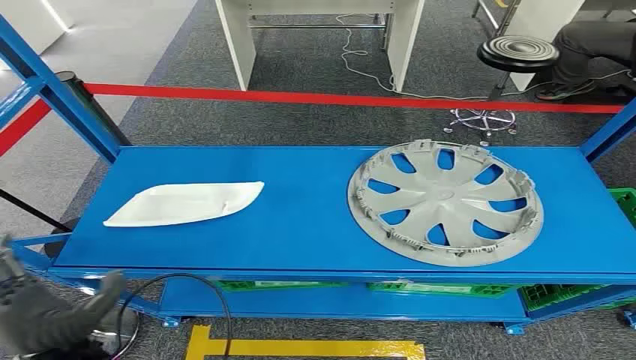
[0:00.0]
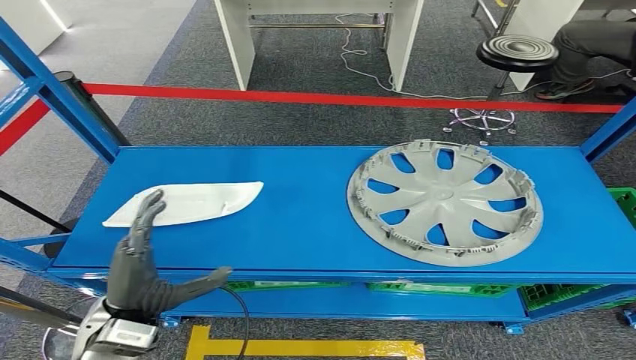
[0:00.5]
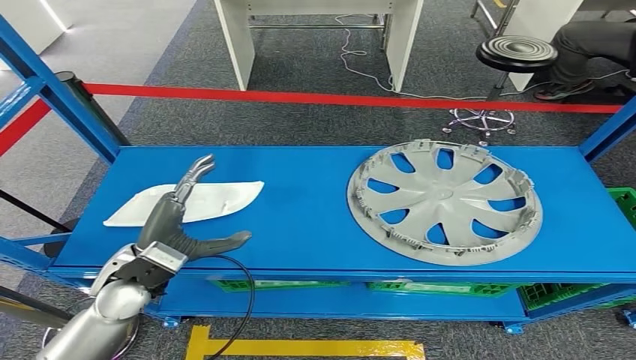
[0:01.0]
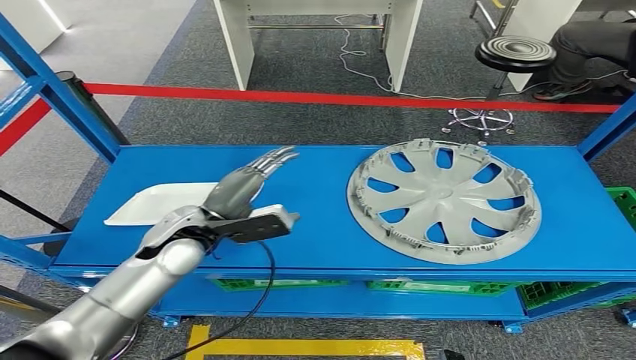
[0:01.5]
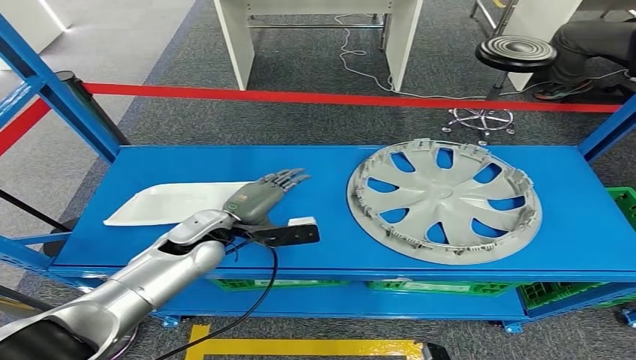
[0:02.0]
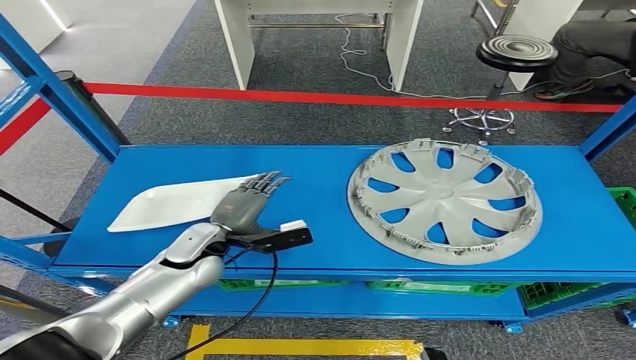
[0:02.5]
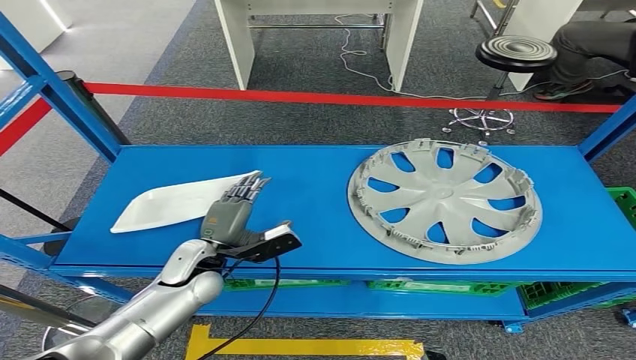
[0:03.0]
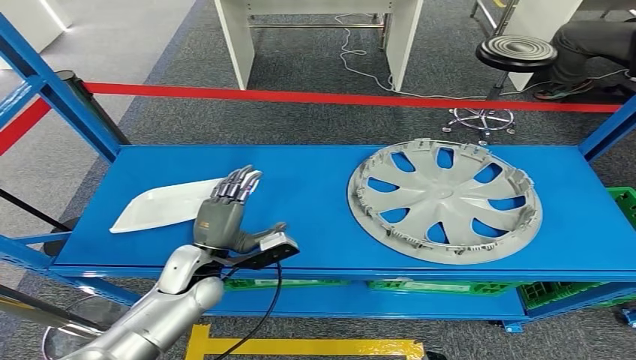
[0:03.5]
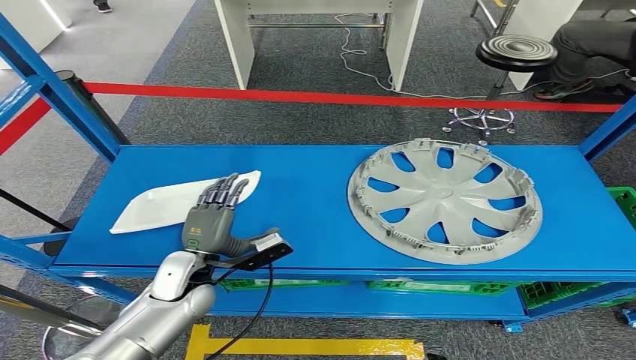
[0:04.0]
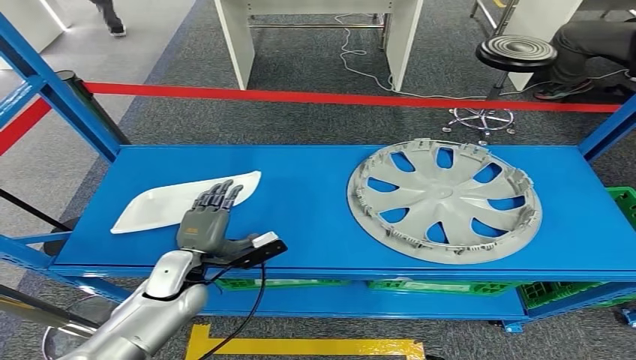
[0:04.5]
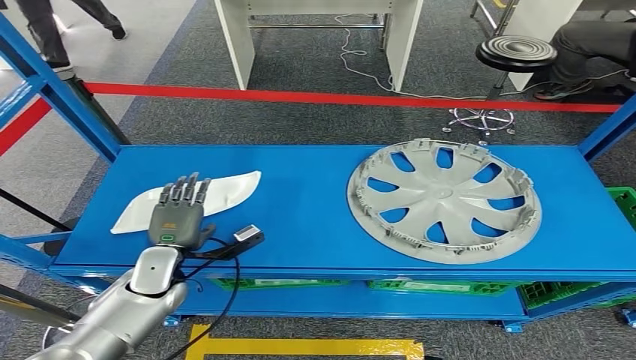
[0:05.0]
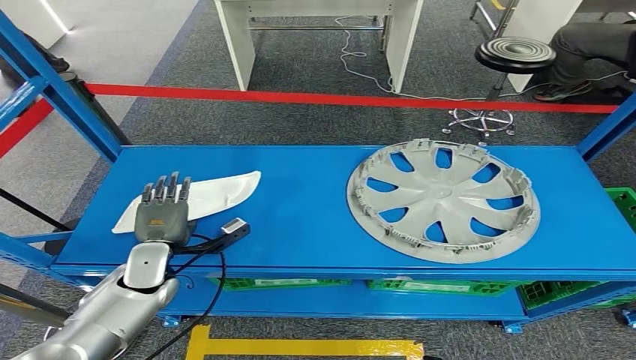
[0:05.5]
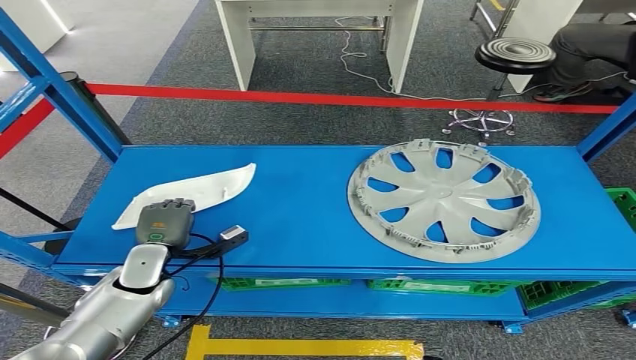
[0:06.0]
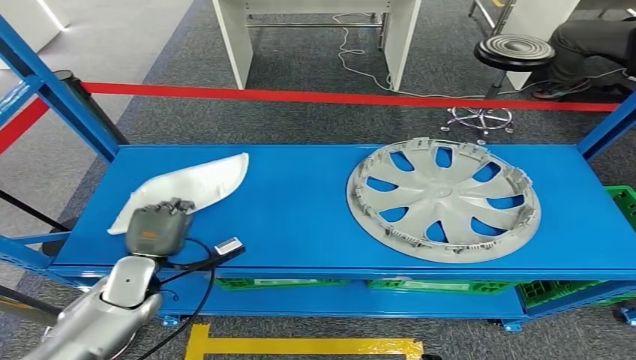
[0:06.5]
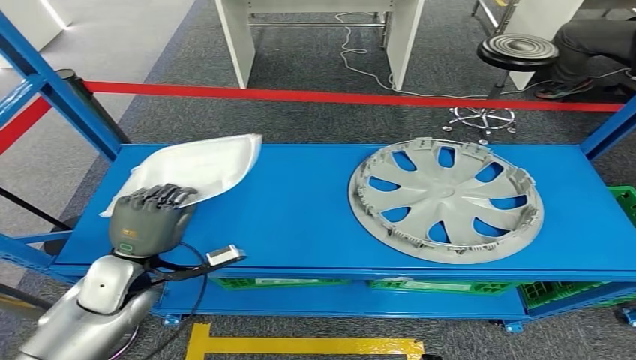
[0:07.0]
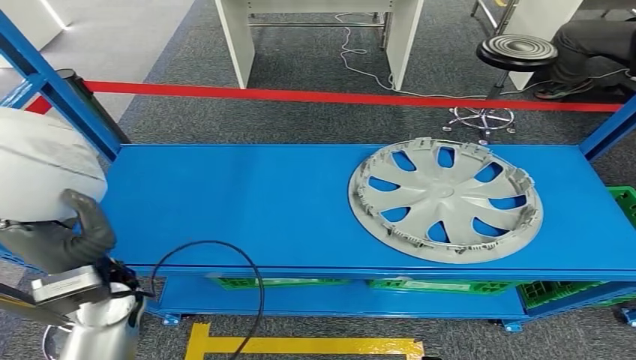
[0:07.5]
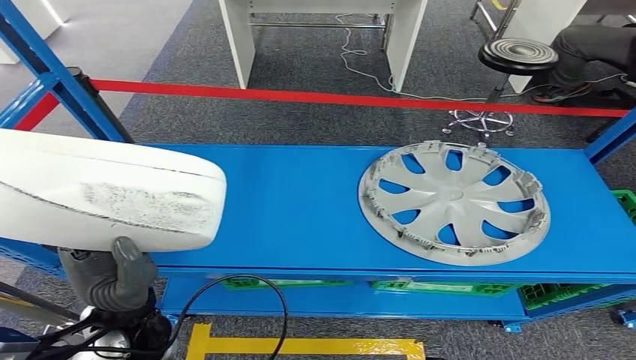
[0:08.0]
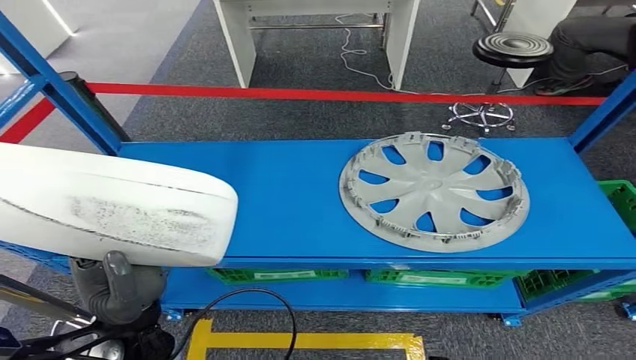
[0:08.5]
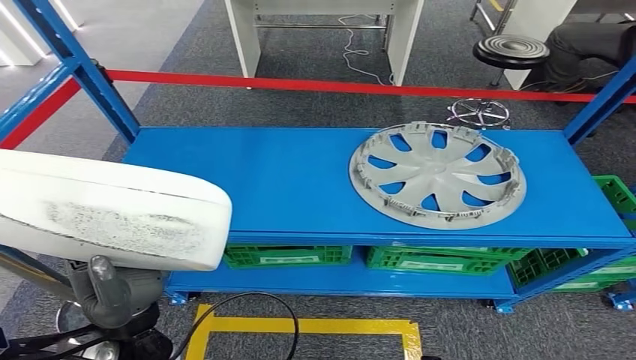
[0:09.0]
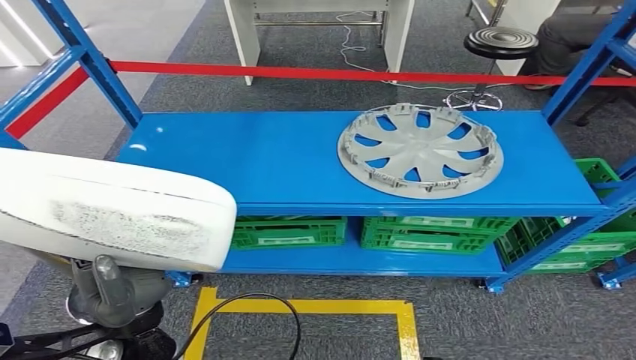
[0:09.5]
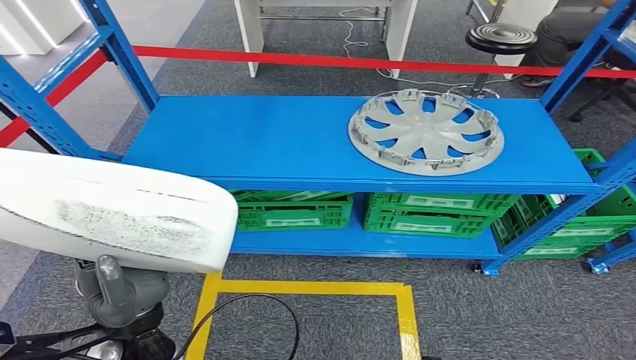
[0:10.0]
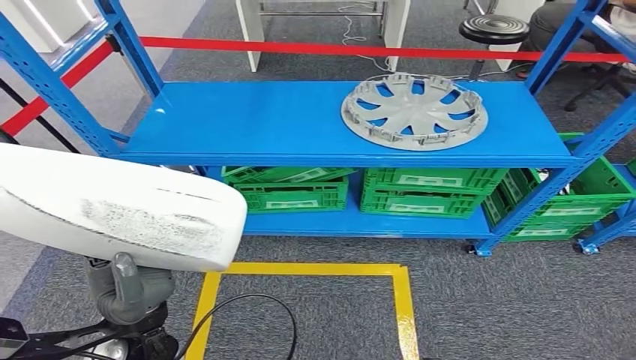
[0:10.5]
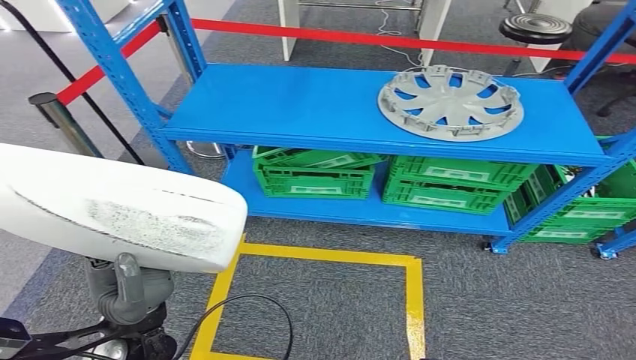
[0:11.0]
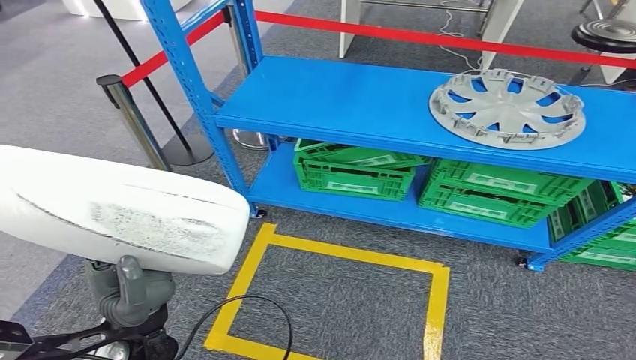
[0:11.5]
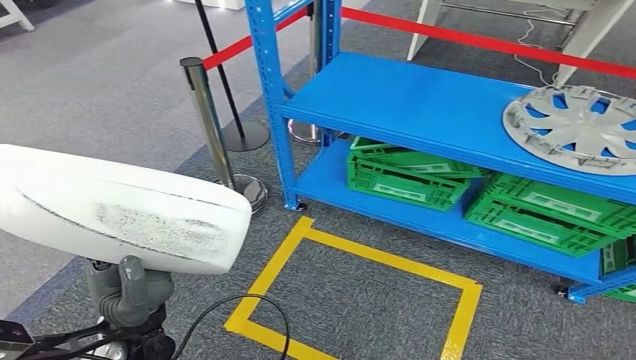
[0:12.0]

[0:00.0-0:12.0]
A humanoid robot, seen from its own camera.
Step, 0:00.0 to 0:08.5: Pick up the small parts from the shelf.
0:02.0 to 0:04.0: The left hand moves backward and downward, roughly 10 cm.
0:04.0 to 0:06.0: The left hand is displaced to the left by approximately 10 cm.

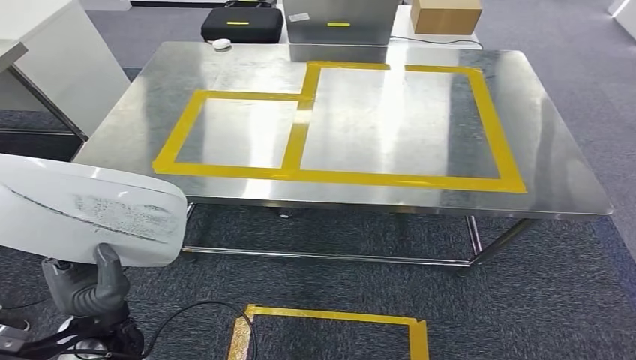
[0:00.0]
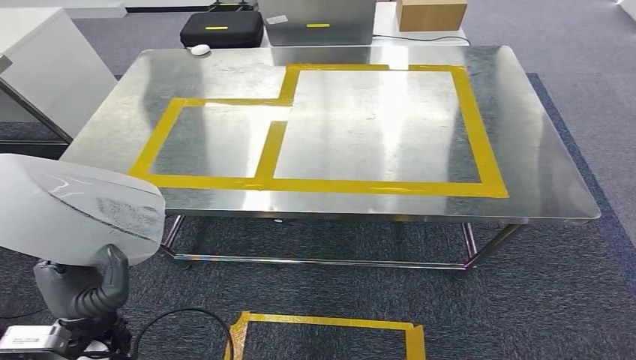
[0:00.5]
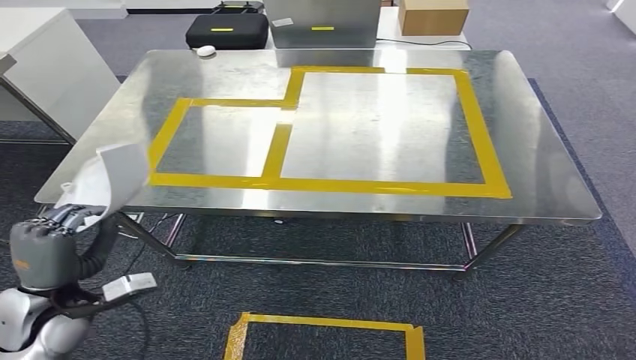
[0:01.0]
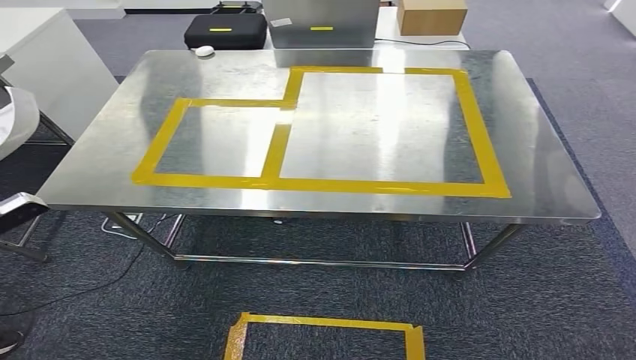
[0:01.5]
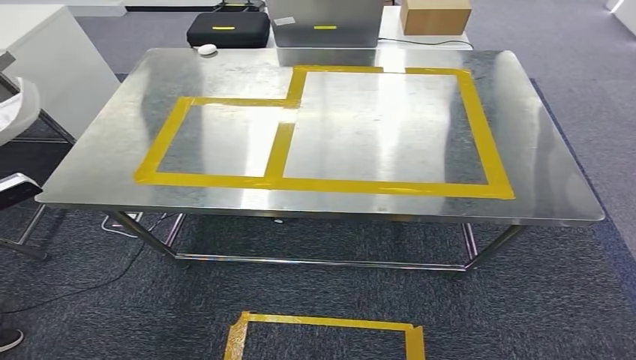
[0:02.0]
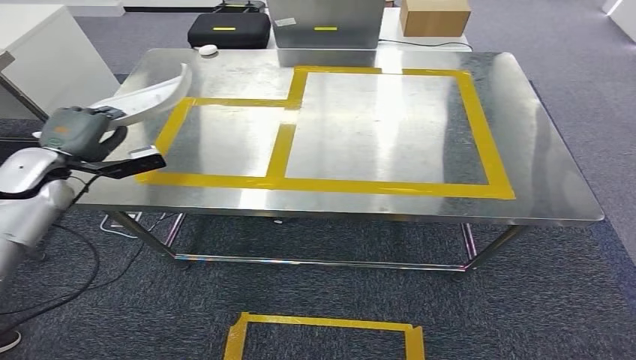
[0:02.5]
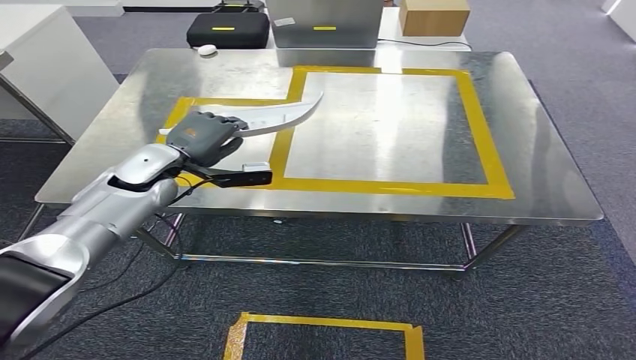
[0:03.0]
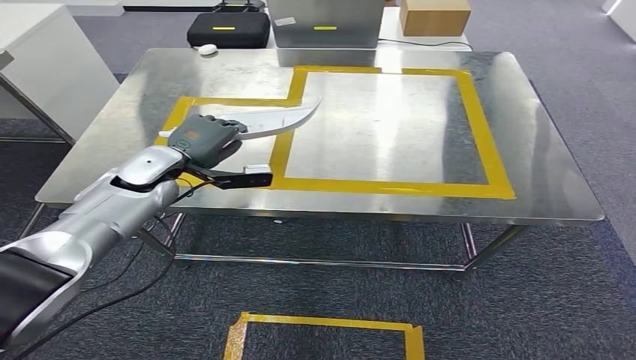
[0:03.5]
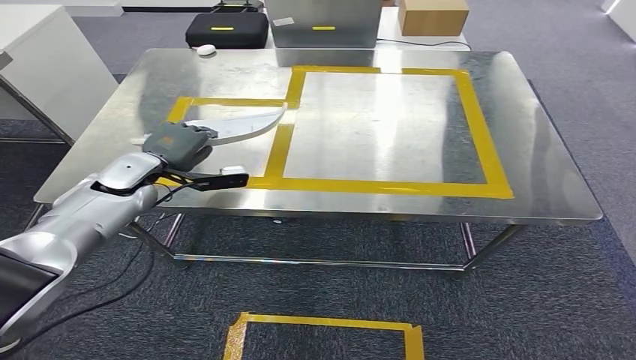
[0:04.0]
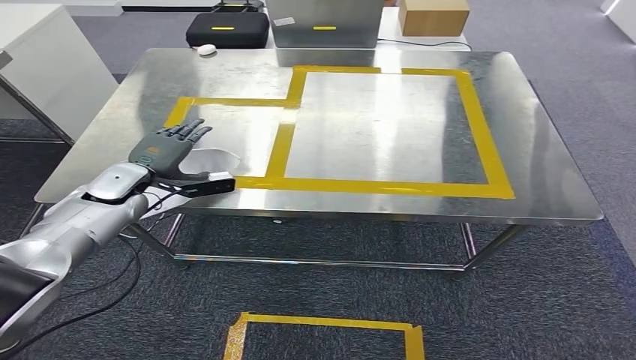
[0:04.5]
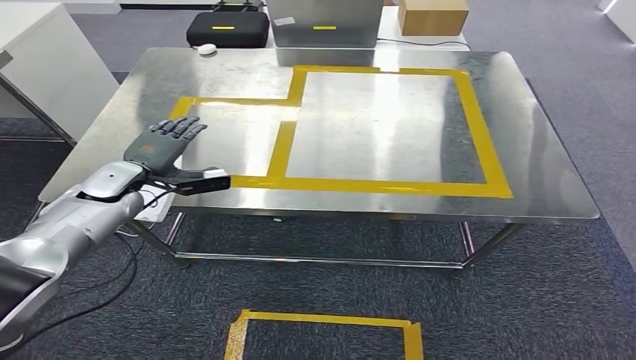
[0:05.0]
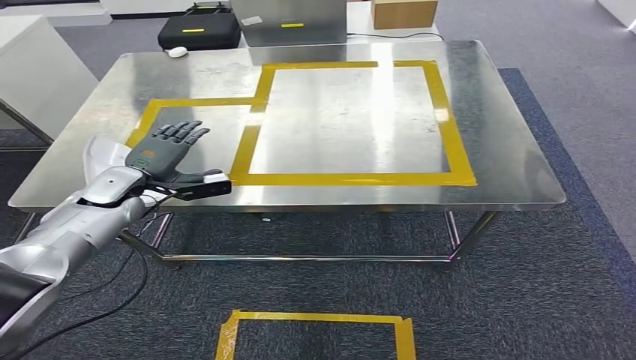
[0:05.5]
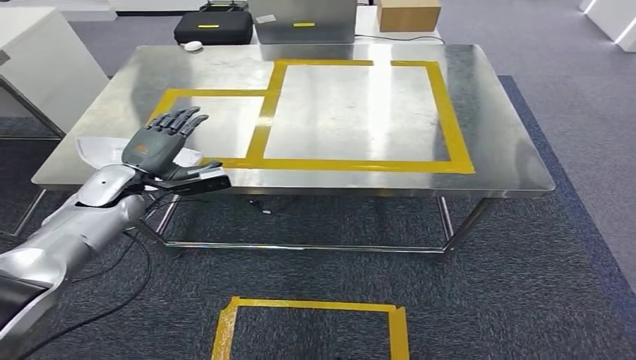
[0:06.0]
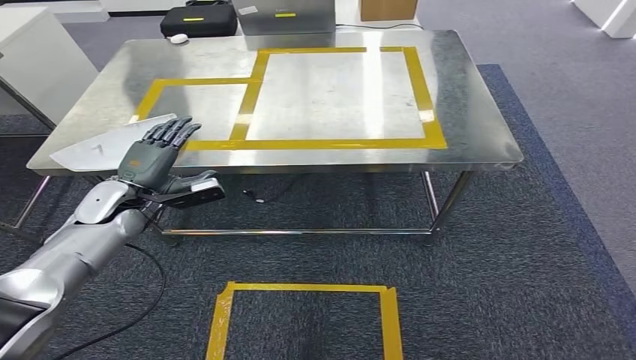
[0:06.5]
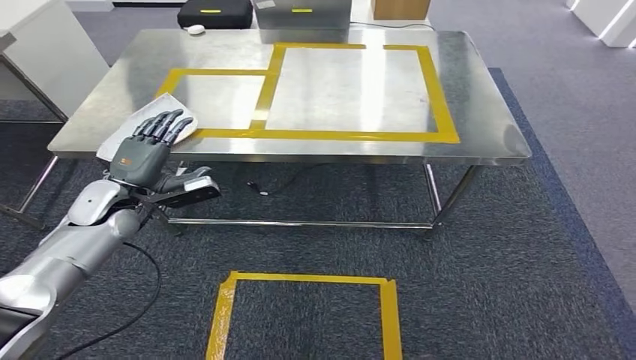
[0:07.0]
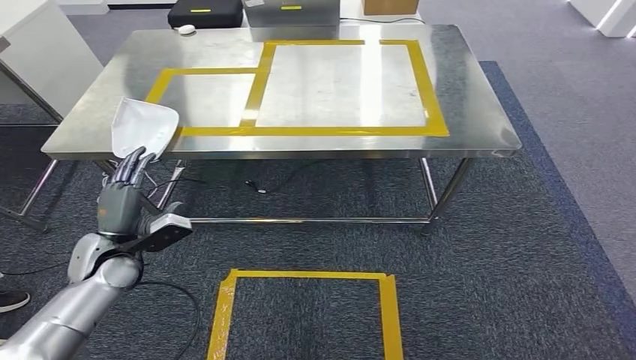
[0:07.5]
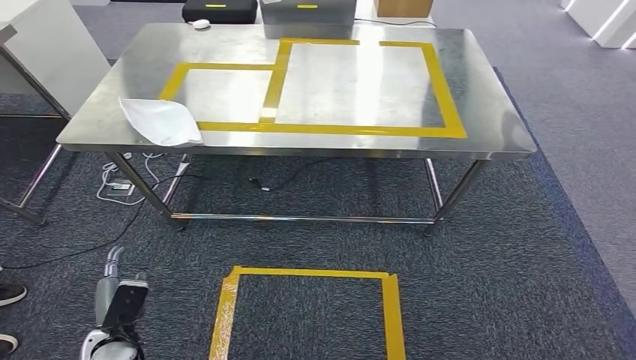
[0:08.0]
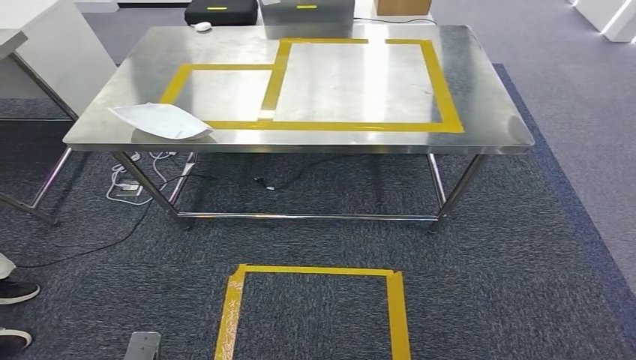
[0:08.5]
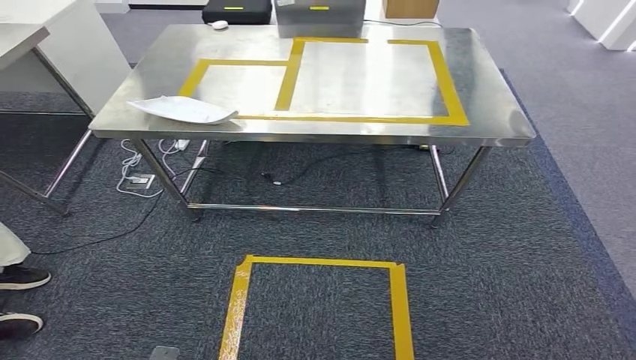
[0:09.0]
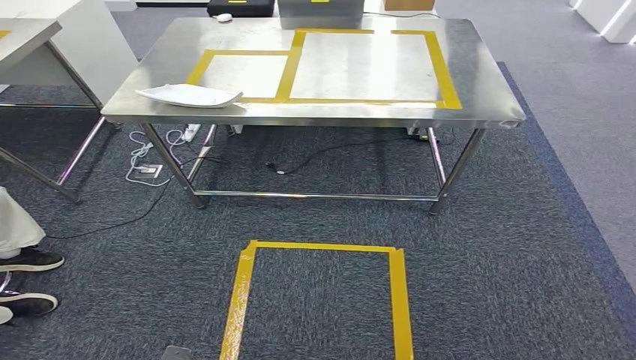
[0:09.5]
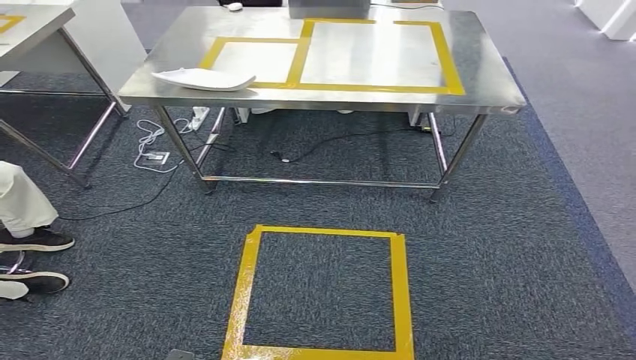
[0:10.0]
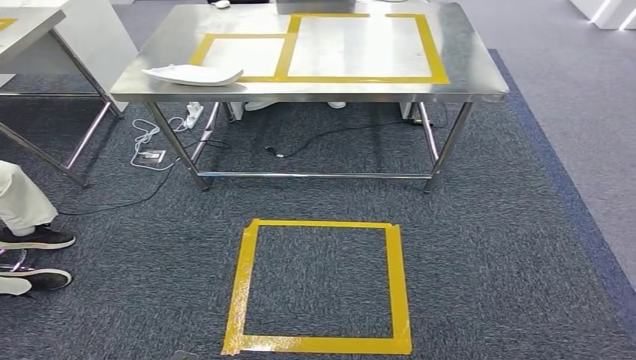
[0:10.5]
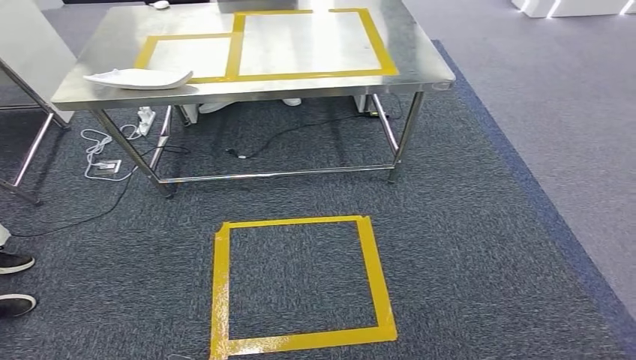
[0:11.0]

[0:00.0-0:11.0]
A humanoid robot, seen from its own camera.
Step, 0:00.0 to 0:07.5: Insert the small parts into the corresponding holes on the workbench.
0:02.0 to 0:03.5: The left hand shifts approximately 35 cm to the right and forward.
